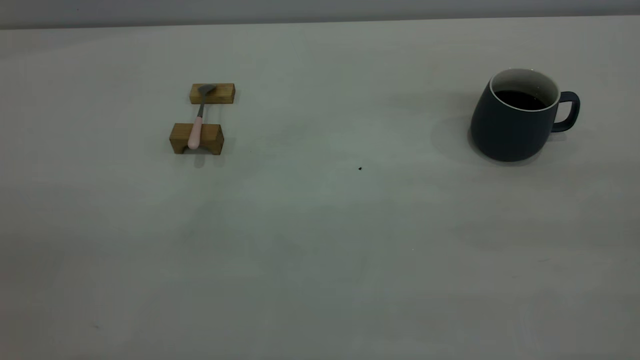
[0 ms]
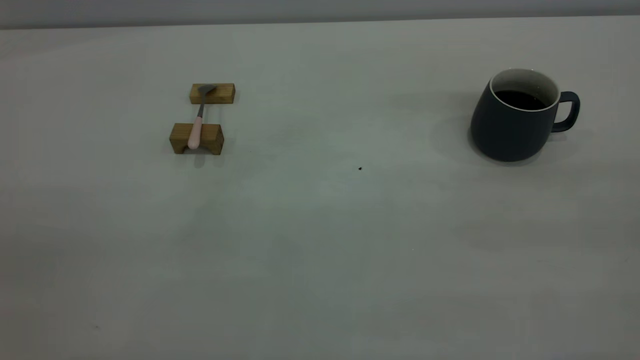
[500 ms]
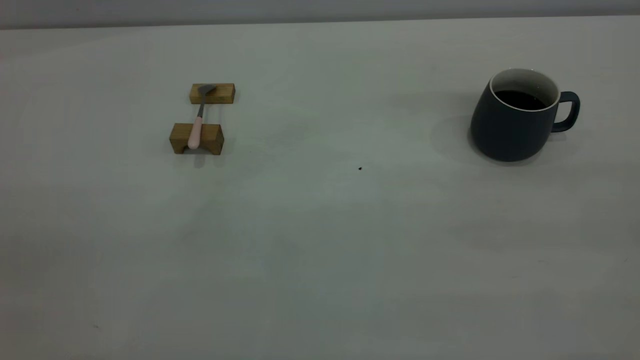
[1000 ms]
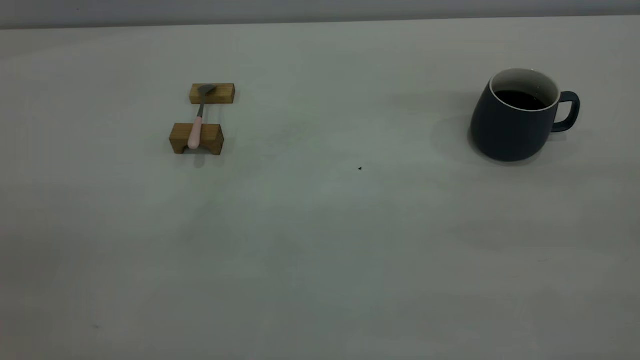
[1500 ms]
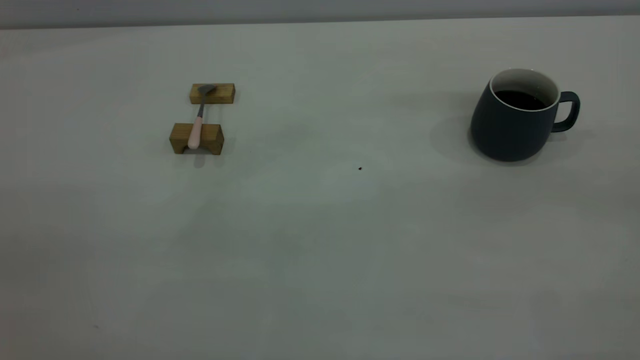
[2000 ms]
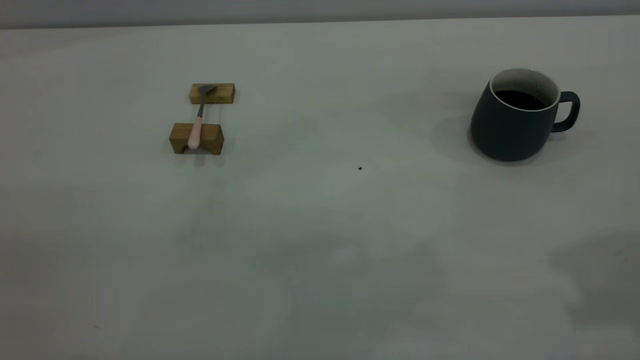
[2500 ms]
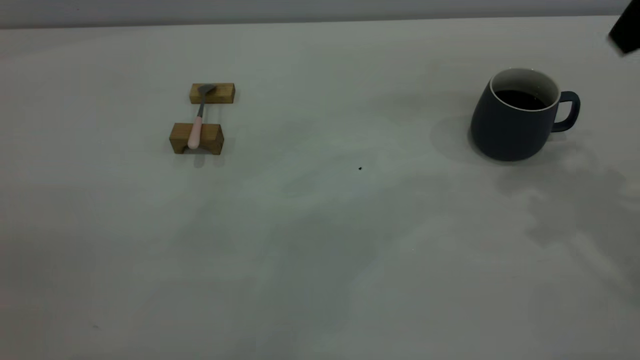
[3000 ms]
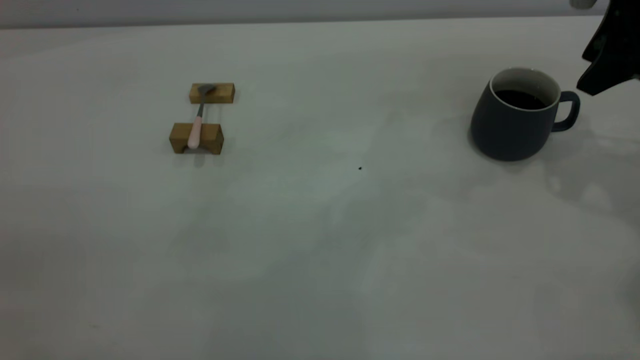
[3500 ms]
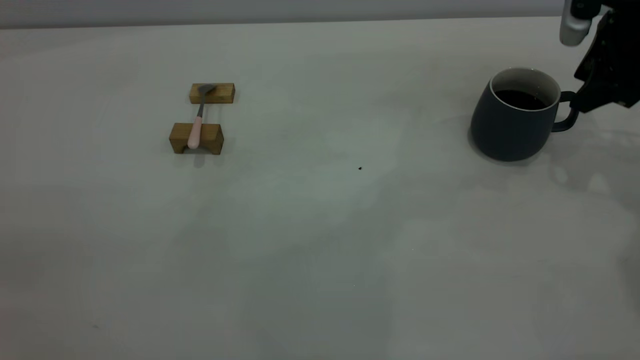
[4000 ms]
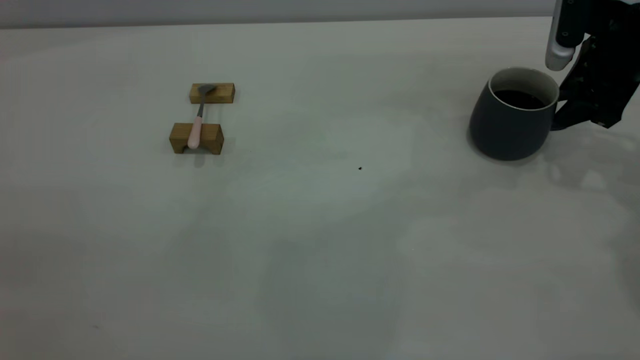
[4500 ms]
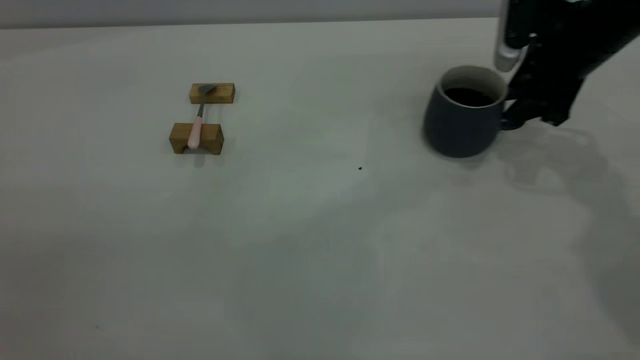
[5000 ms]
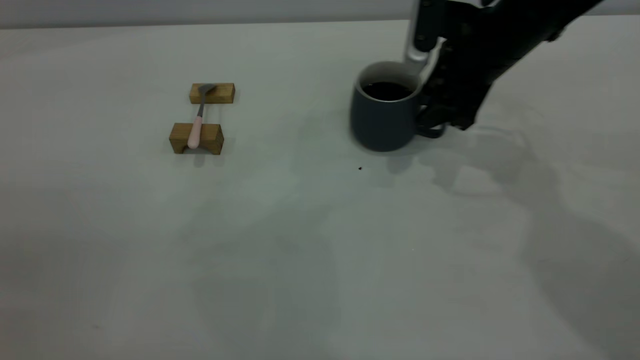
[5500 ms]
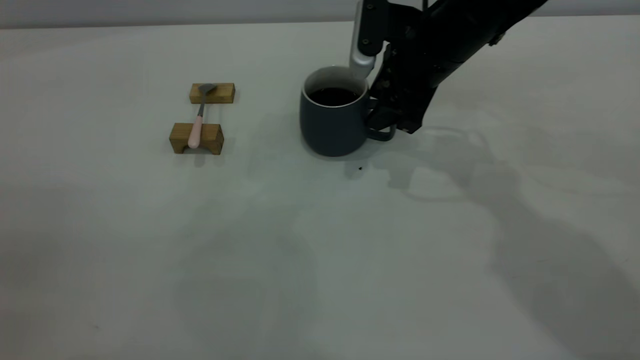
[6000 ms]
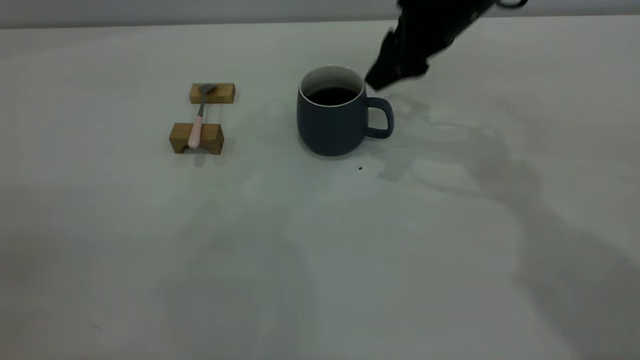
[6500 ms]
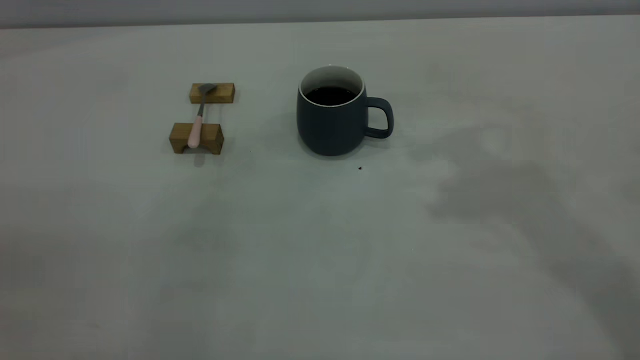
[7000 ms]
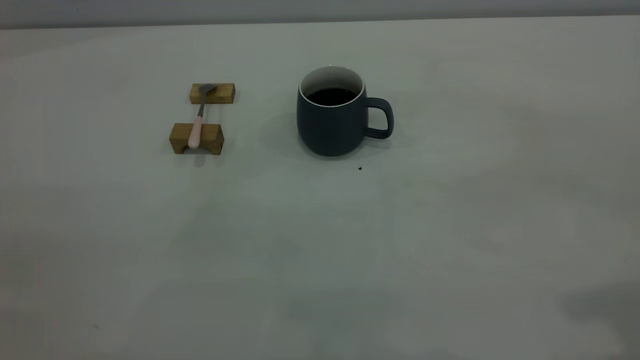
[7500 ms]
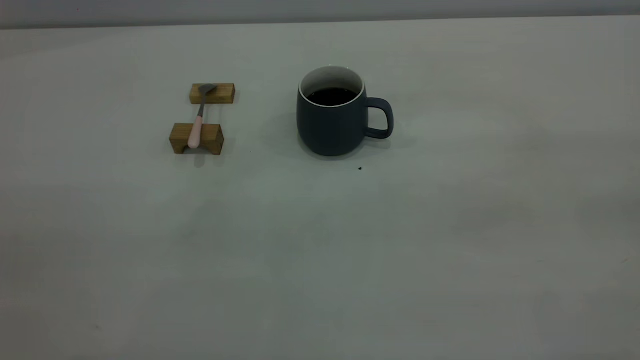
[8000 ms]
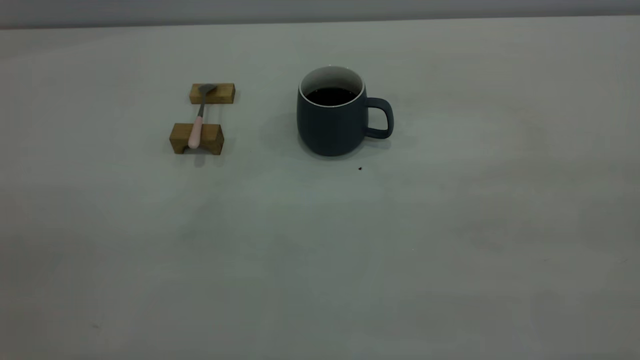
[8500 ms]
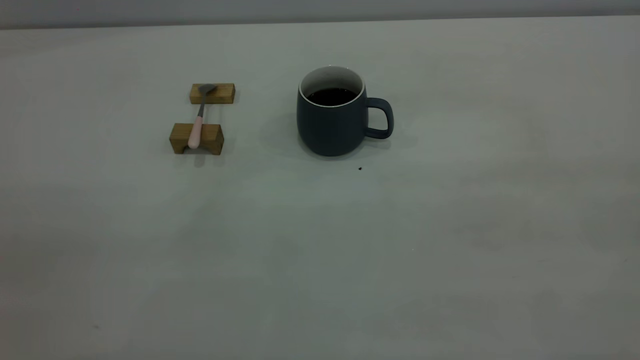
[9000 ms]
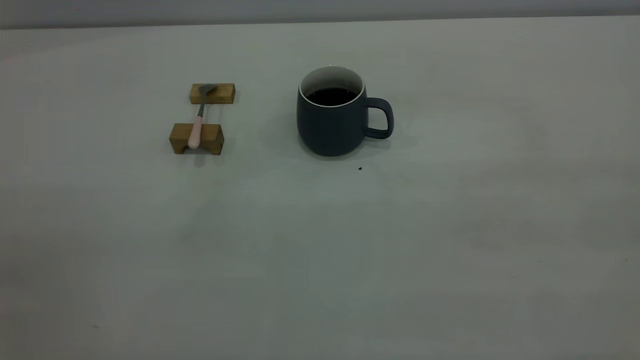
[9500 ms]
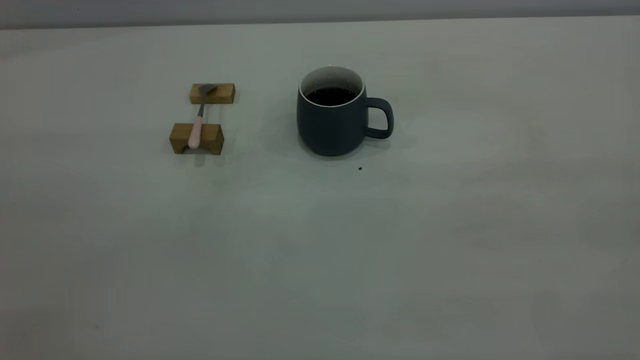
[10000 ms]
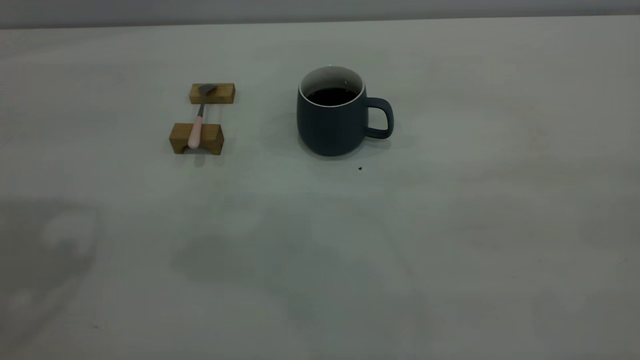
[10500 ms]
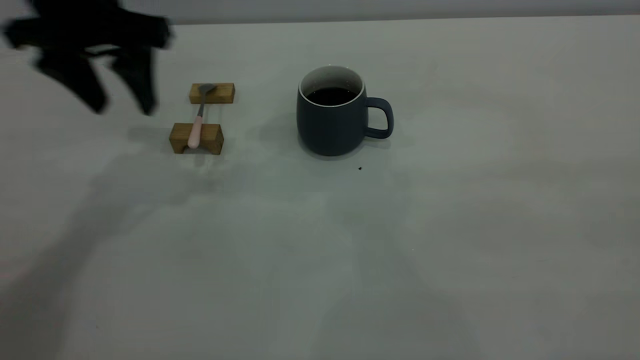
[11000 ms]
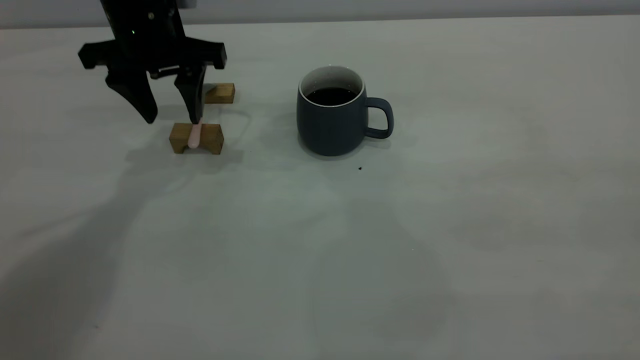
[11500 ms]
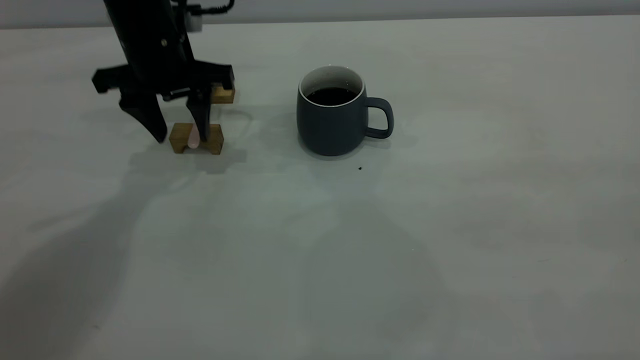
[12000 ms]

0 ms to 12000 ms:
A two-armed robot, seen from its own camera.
Step, 0 ms to 6000 ms: Move the cup in the center of the table with right gripper.
2000 ms to 4000 ms: The right gripper shifts some 40 cm forward and downward.
4000 ms to 6000 ms: The right gripper heads to the left, covering roughly 20 cm.
6000 ms to 8000 ms: The right gripper shifts roughly 50 cm backward, upward and to the right.
10000 ms to 12000 ms: The left gripper heads forward and downward, covering about 40 cm.

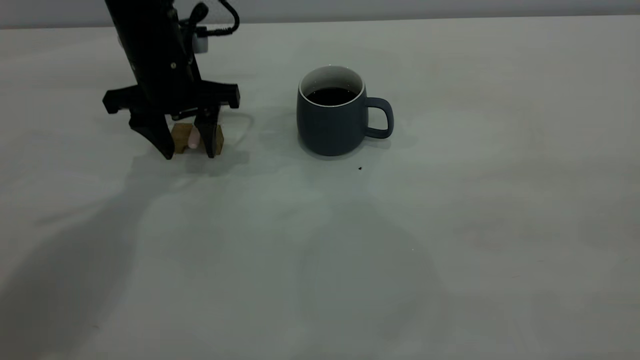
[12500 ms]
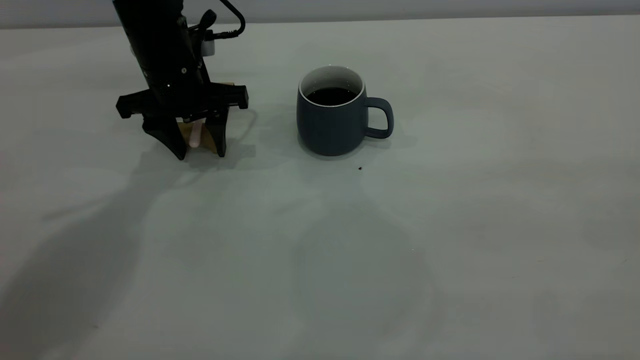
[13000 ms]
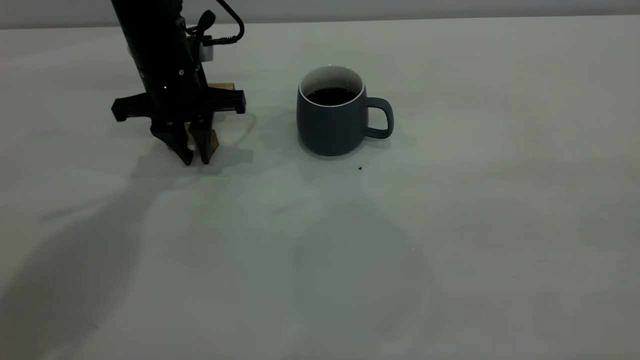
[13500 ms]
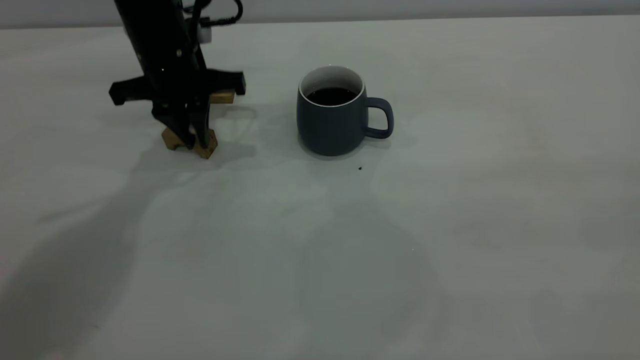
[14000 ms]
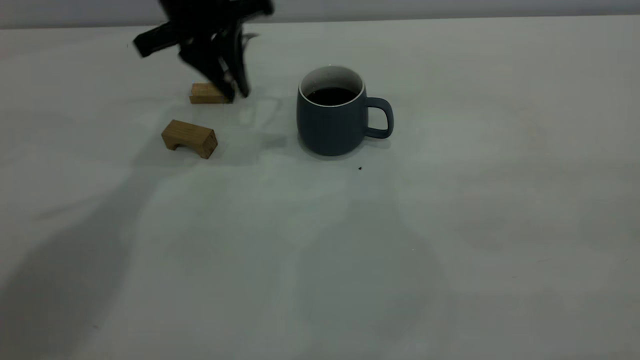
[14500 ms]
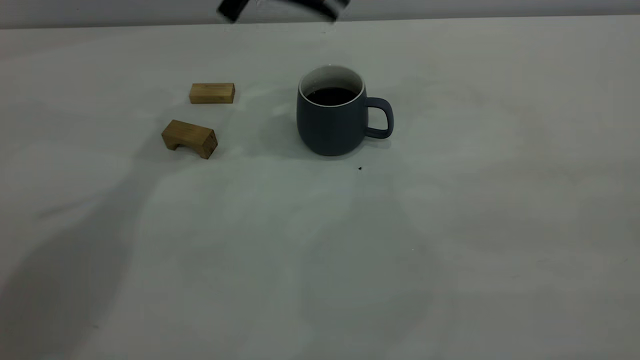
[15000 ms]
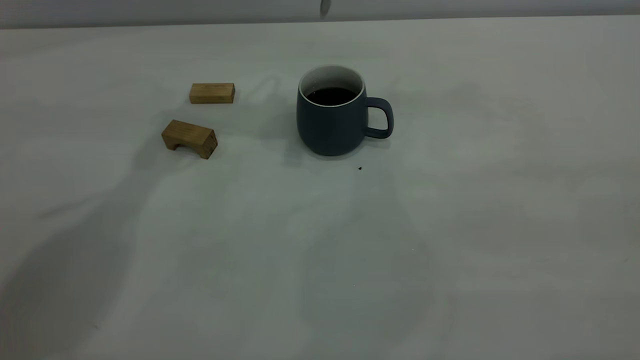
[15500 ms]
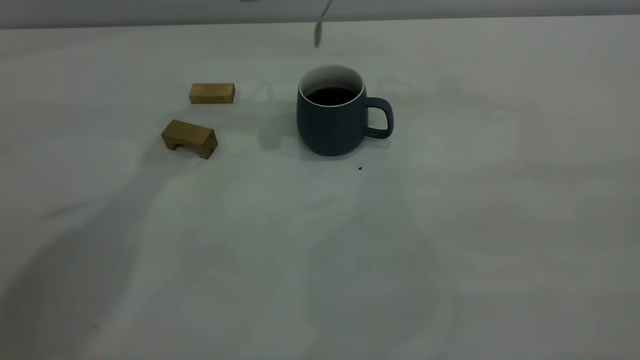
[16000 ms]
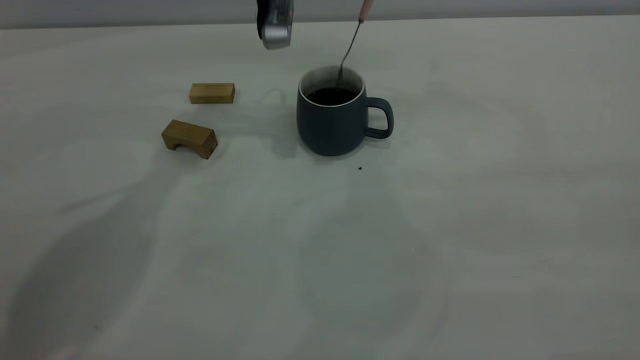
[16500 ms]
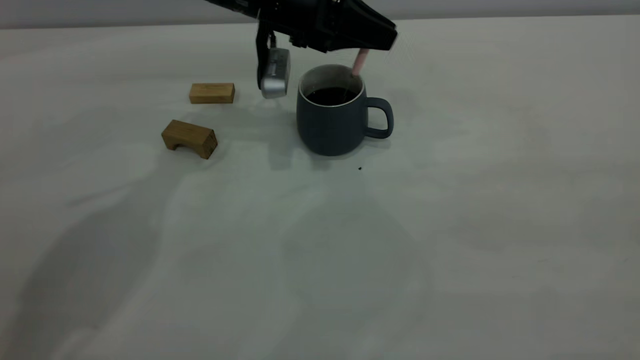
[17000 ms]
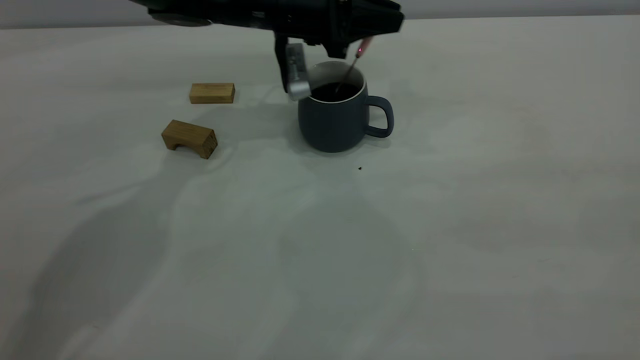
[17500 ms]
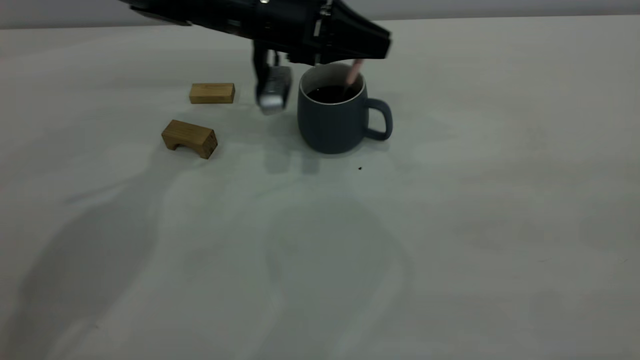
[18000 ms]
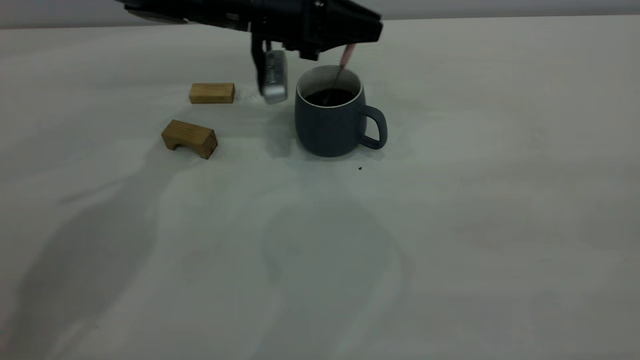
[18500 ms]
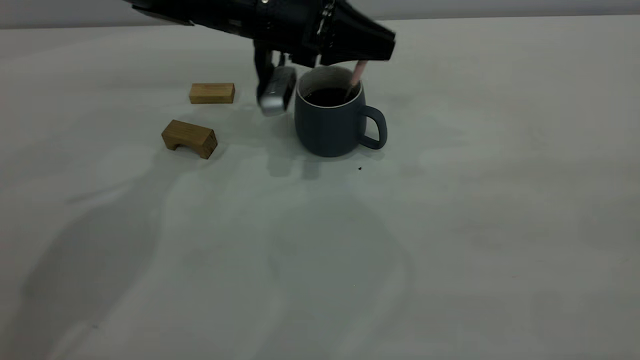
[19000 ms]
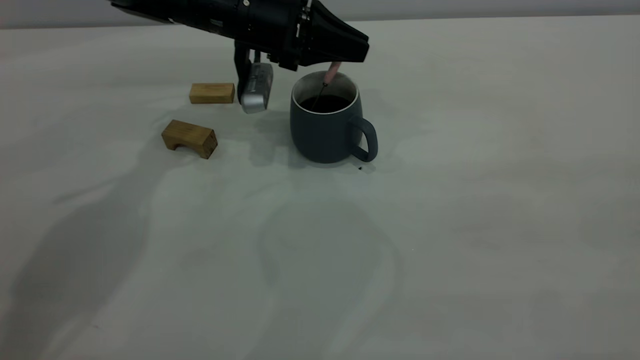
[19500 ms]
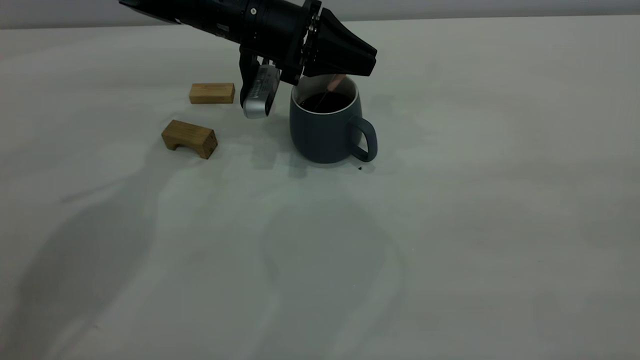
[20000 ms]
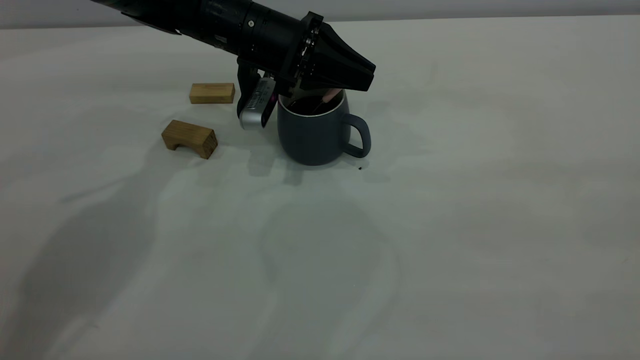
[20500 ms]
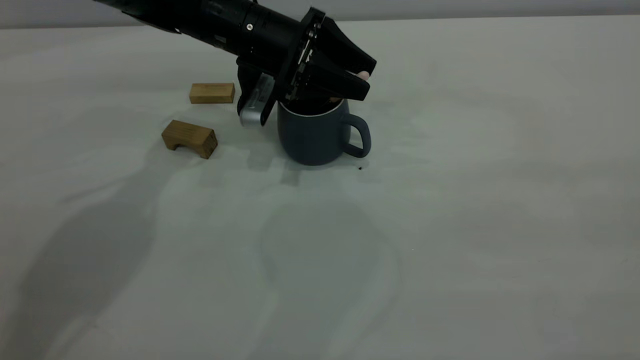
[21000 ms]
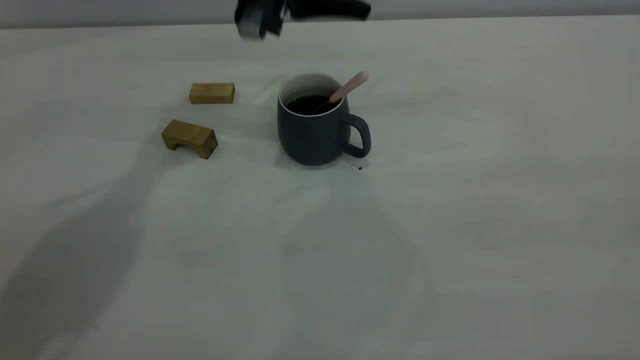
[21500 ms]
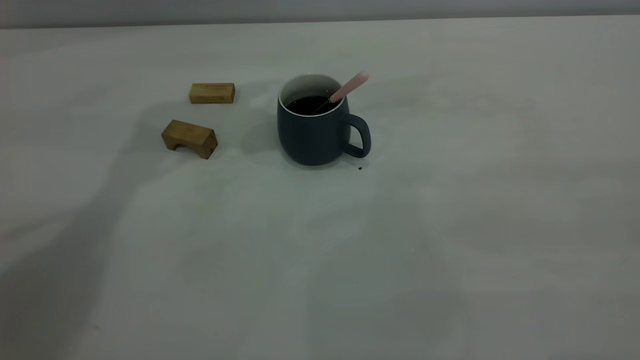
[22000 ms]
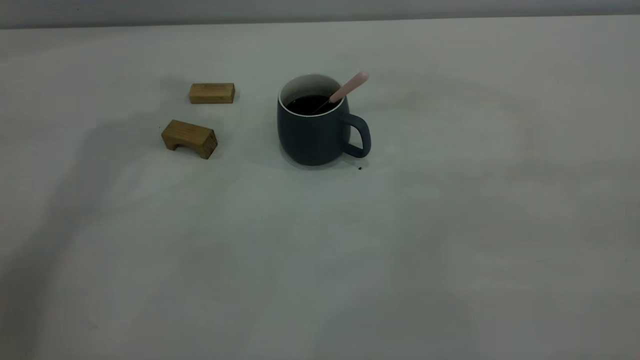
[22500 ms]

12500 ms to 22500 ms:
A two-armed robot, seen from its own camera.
Step, 14000 ms to 21000 ms: Stir the coffee with left gripper.
12500 ms to 14500 ms: The left gripper is displaced upward by about 10 cm, and closes its fingers.
14500 ms to 16500 ms: The left gripper shifts approximately 5 cm to the right.
16500 ms to 18500 ms: The left gripper moves downward, approximately 5 cm.
18500 ms to 20500 ms: The grippers make only small movements.
20500 ms to 22500 ms: The left gripper shifts approximately 30 cm upward, and opens its fingers.
